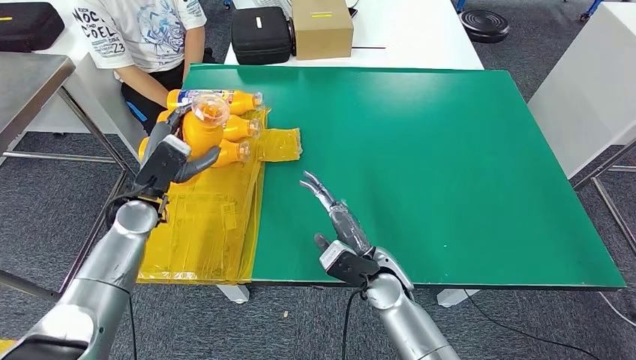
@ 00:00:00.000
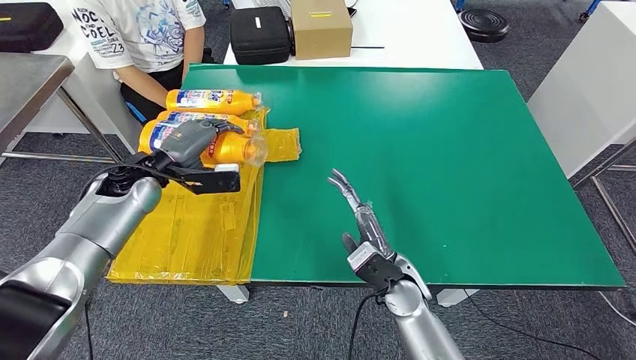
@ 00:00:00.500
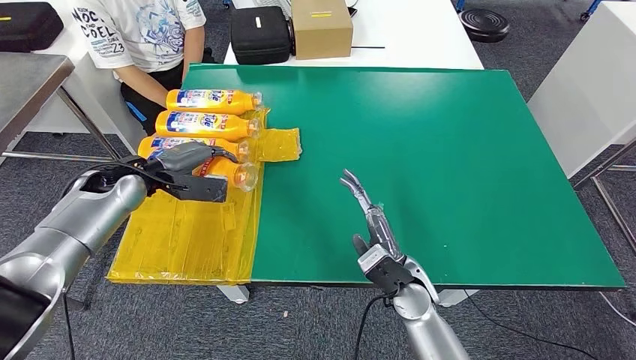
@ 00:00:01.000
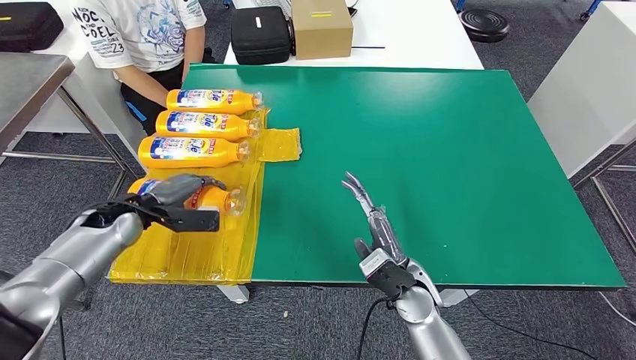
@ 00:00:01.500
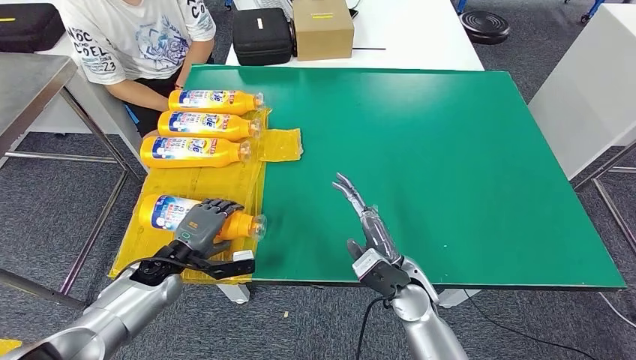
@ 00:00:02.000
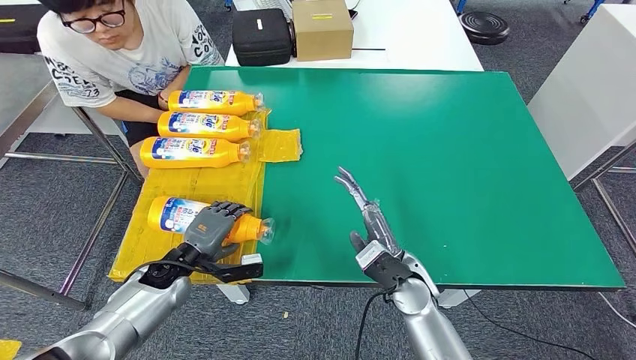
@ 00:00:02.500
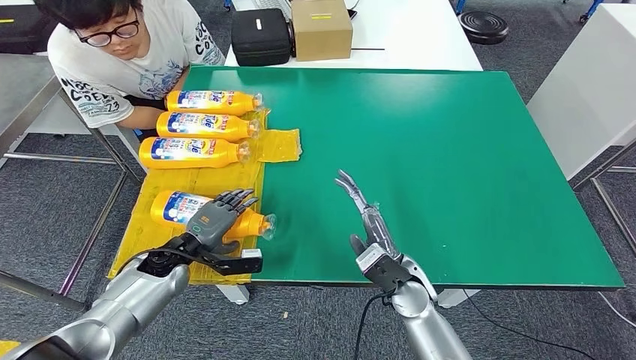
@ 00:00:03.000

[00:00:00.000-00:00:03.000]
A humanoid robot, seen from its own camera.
Step, 00:00:00.000 to 00:00:03.000: Flip the fast-moving consumer goods bottle to the front side.
00:00:00.000 to 00:00:01.500: The right hand shifts by roughly 5 cm. The left hand heads to the left, covering approximately 5 cm.
